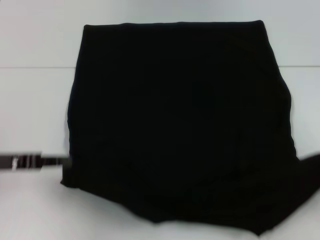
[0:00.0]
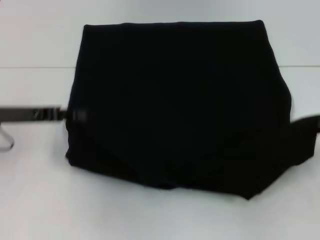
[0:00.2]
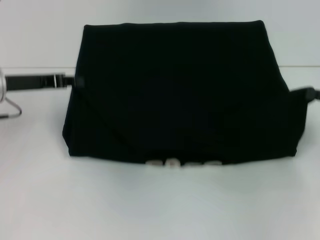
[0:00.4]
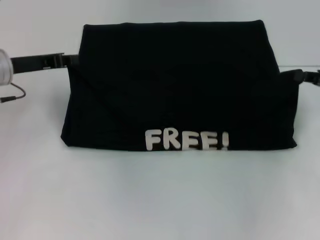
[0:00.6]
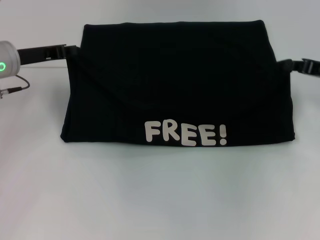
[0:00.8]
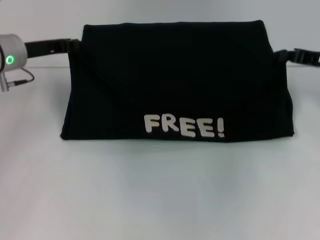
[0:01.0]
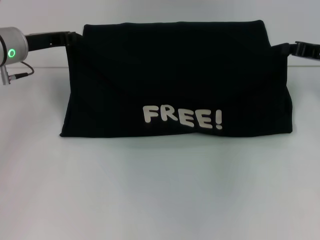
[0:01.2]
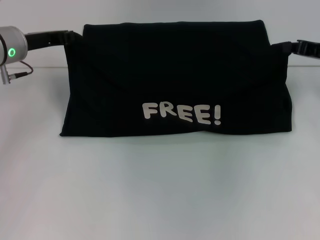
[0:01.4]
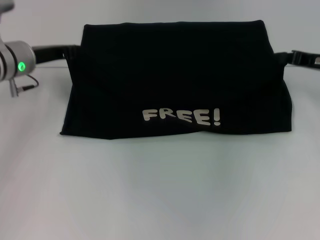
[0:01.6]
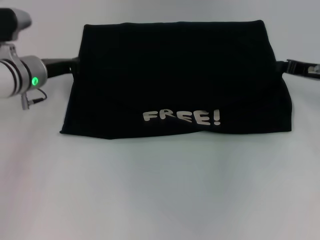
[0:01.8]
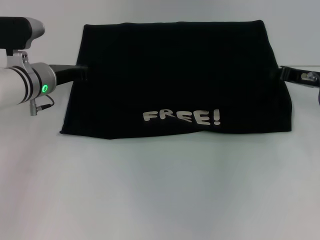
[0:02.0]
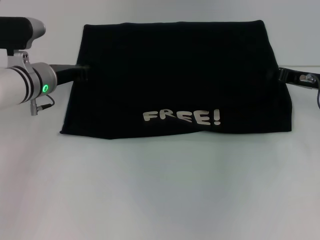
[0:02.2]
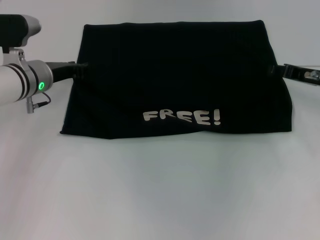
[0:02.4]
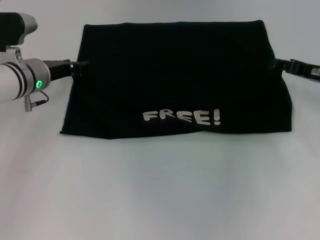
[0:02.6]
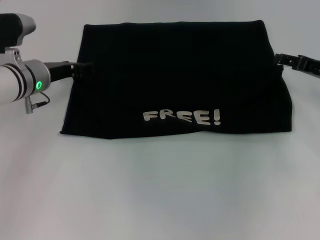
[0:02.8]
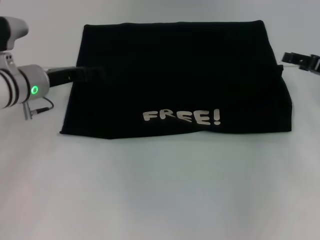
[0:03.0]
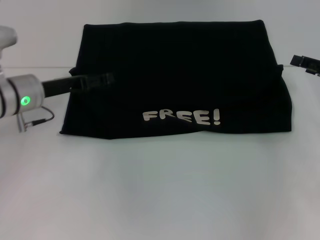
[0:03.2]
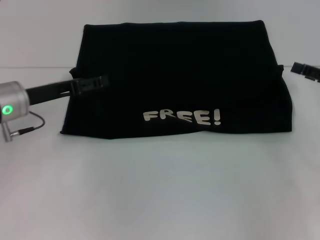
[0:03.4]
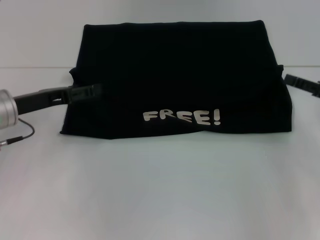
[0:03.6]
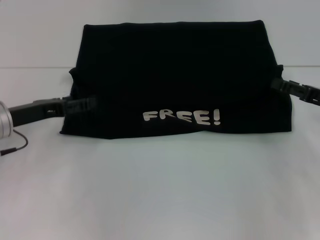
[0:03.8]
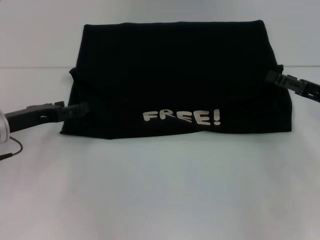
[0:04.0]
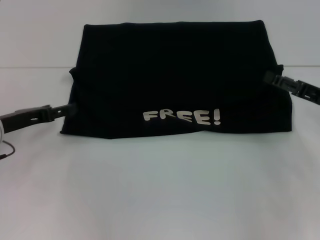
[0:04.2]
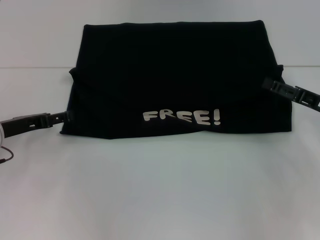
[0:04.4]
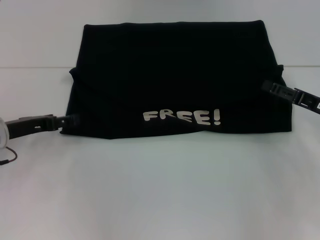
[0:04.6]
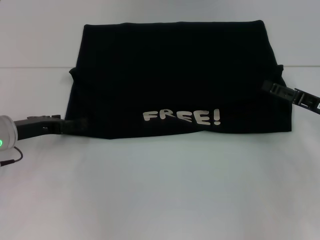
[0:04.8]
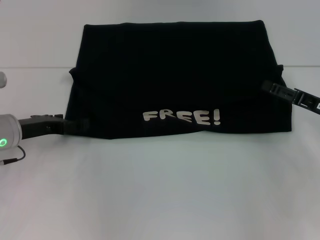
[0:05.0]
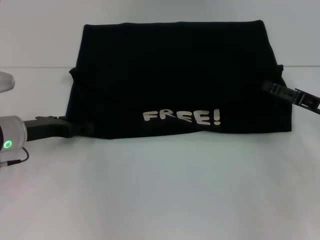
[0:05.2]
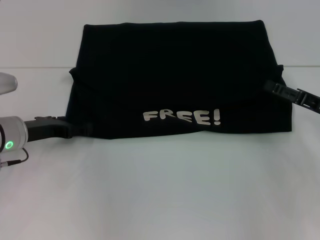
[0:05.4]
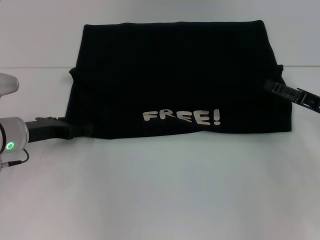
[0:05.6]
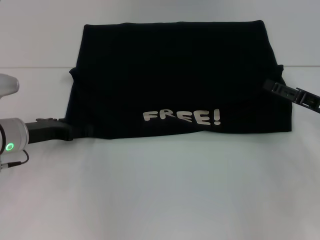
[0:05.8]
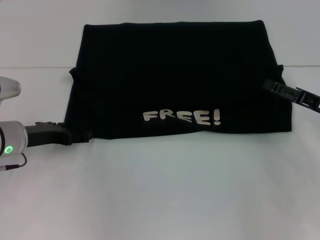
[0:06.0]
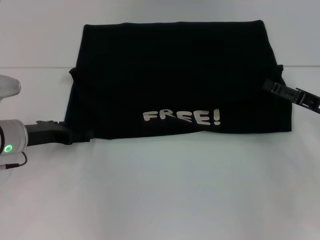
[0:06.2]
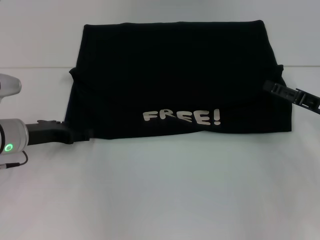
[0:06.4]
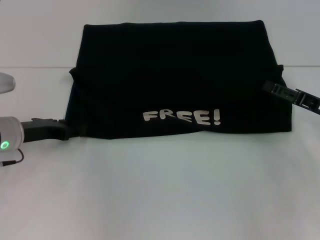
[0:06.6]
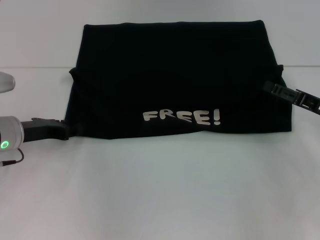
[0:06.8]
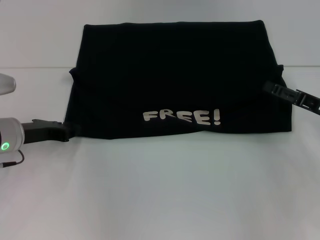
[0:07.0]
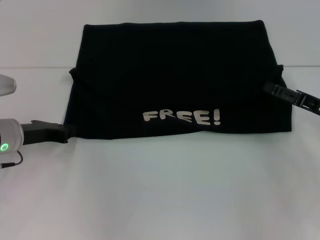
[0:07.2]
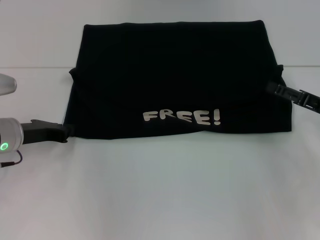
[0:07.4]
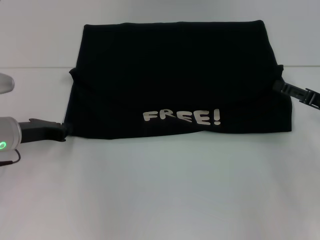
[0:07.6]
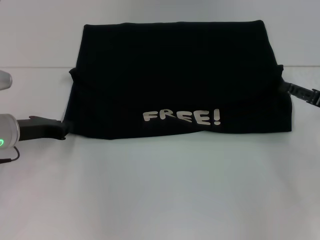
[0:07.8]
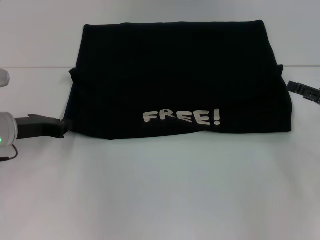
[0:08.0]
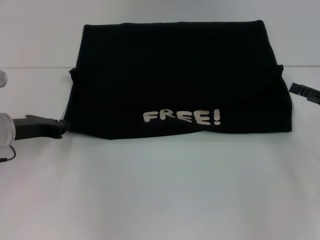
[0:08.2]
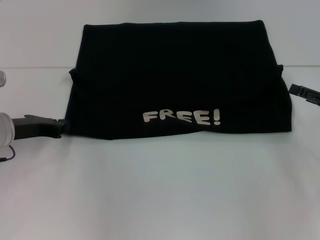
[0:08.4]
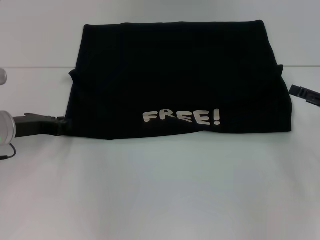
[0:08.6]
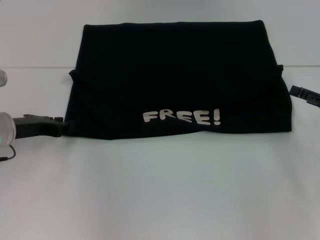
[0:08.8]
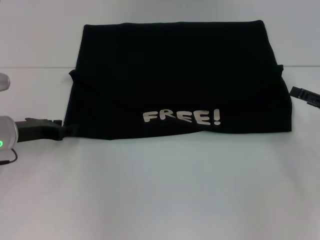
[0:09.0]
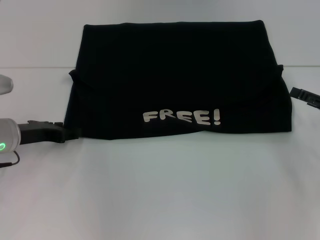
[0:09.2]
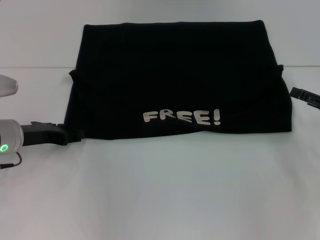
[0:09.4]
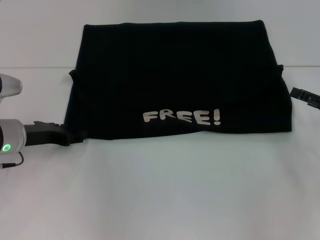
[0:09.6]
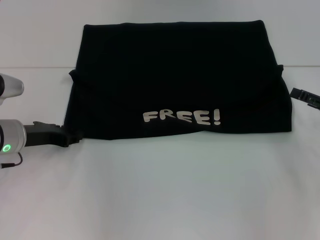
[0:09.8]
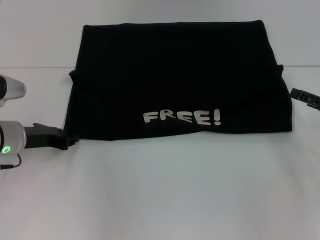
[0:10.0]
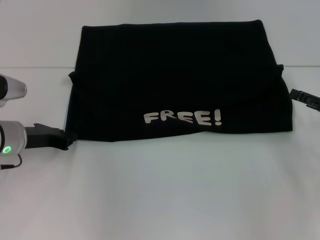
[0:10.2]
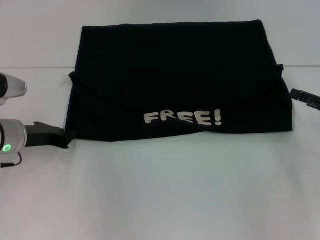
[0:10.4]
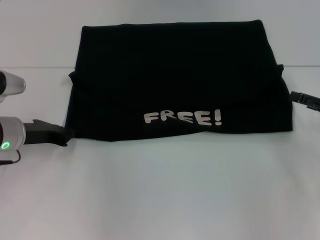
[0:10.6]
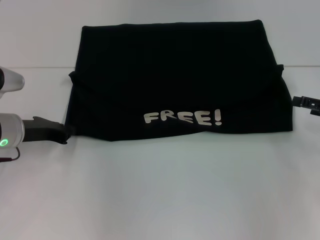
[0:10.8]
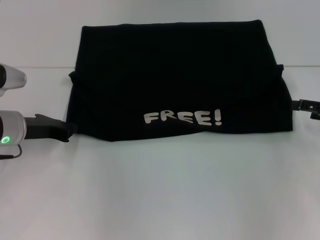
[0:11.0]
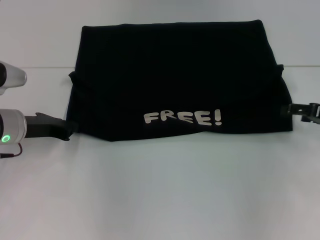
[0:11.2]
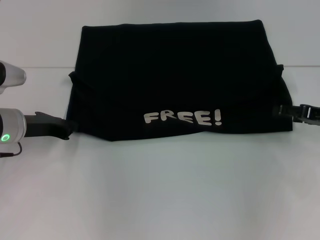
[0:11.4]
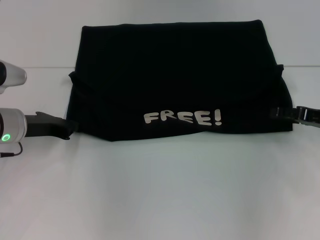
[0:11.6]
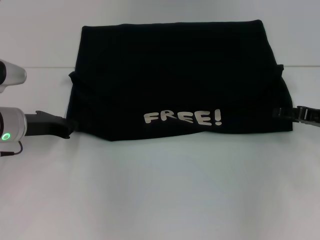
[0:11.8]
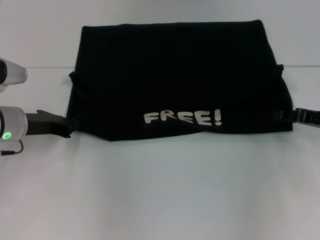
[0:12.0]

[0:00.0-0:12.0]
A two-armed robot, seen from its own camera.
Step, 0:00.0 to 0:02.4: Fold the clothes with your left hand.
Step, 0:00.0 to 0:02.4: Fold the clothes with your right hand.
0:00.0 to 0:01.6: The left gripper goes roughly 15 cm forward, while the right gripper shifts about 20 cm forward and to the left.
0:01.6 to 0:03.0: The right gripper opens. Meanwhile the left gripper opens up.
0:03.0 to 0:04.4: The left gripper travels backward and to the left by approximately 10 cm; the right gripper ends up roughly 5 cm from where it was.
0:04.4 to 0:06.0: The grippers stay close to where they were, moving slightly.
0:06.0 to 0:07.6: The left gripper closes up.
0:07.6 to 0:09.0: The left gripper opens.
0:09.0 to 0:12.0: There are only small adjustments of the grippers.

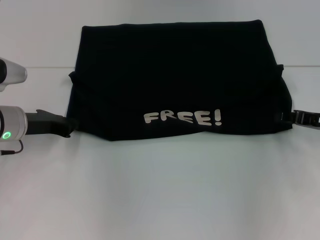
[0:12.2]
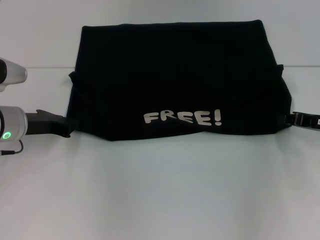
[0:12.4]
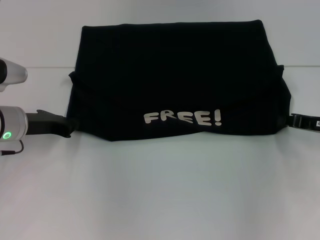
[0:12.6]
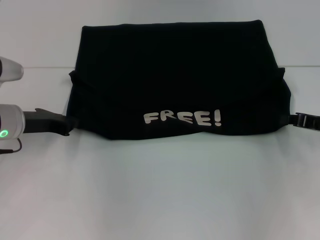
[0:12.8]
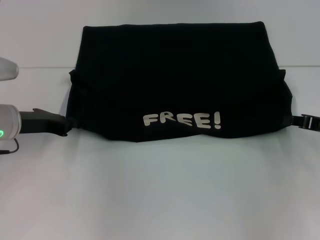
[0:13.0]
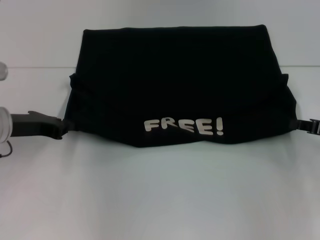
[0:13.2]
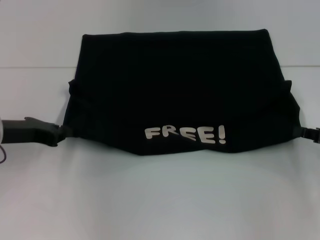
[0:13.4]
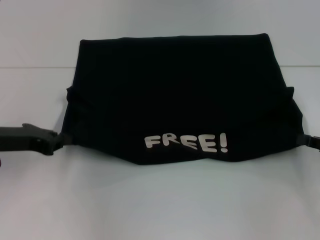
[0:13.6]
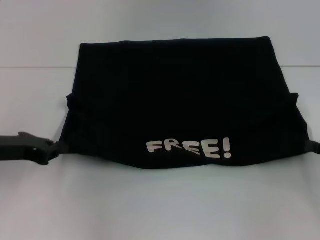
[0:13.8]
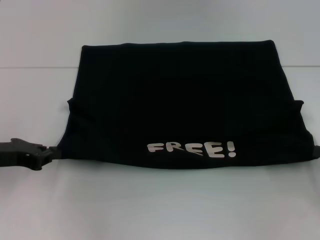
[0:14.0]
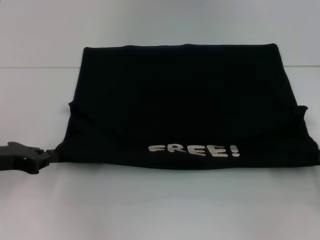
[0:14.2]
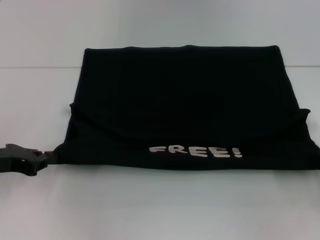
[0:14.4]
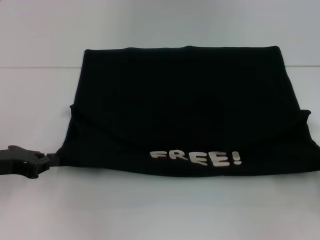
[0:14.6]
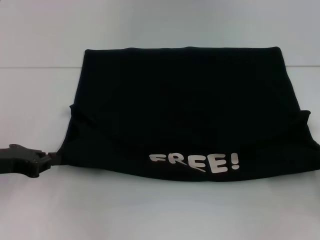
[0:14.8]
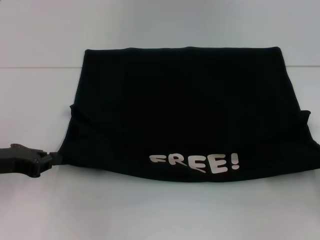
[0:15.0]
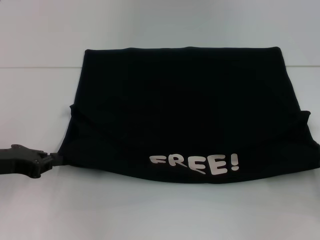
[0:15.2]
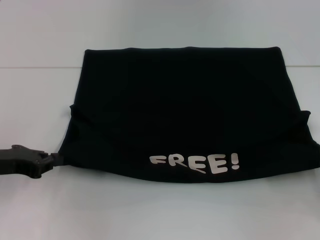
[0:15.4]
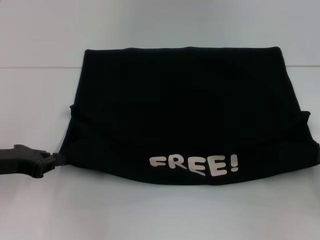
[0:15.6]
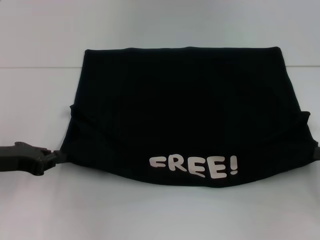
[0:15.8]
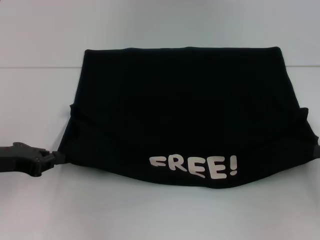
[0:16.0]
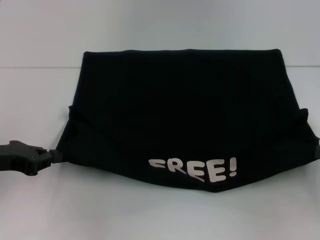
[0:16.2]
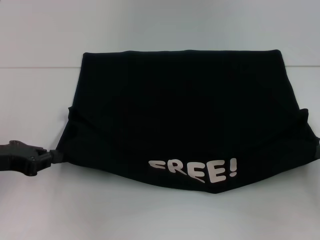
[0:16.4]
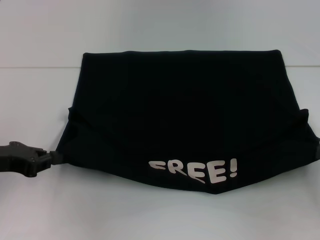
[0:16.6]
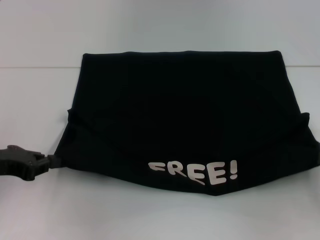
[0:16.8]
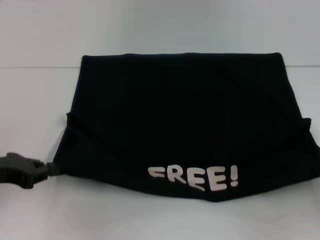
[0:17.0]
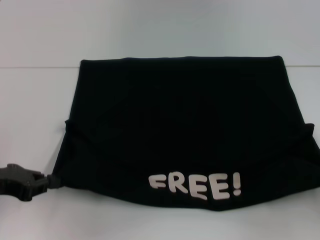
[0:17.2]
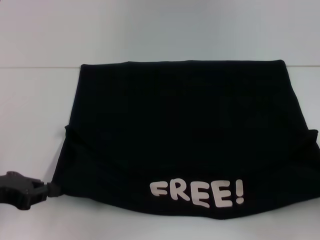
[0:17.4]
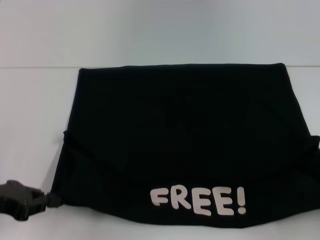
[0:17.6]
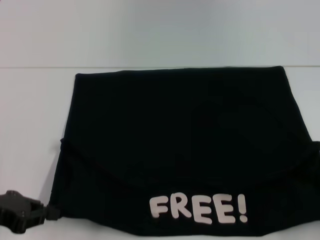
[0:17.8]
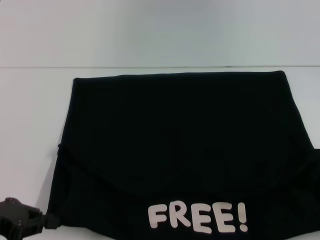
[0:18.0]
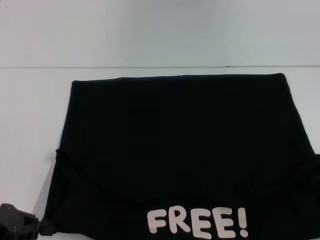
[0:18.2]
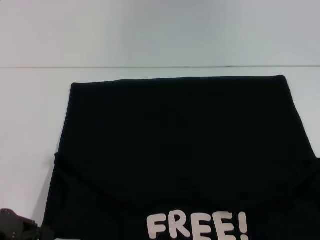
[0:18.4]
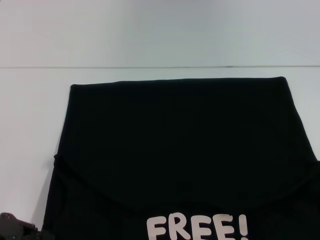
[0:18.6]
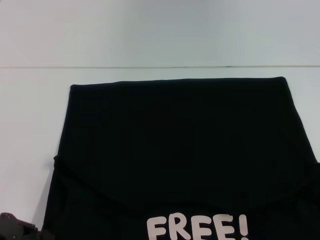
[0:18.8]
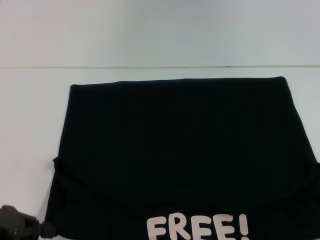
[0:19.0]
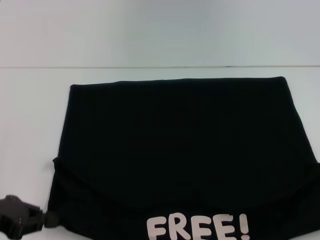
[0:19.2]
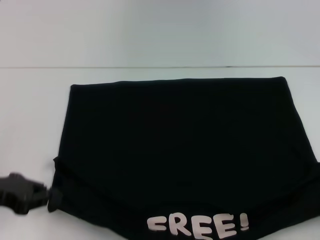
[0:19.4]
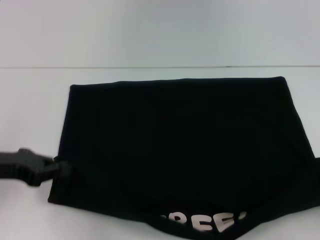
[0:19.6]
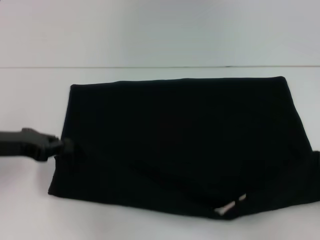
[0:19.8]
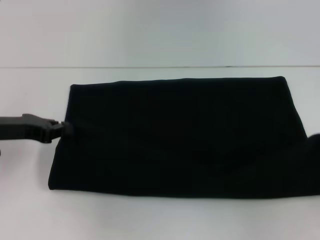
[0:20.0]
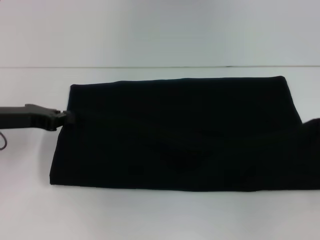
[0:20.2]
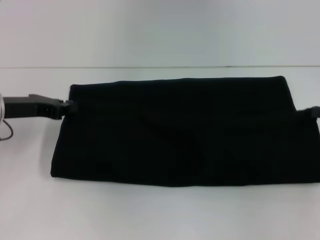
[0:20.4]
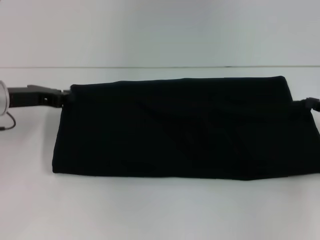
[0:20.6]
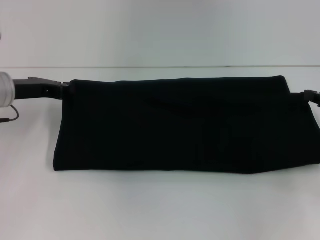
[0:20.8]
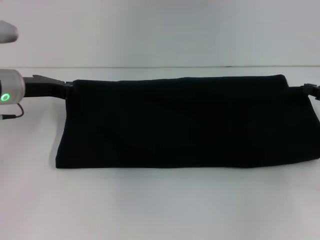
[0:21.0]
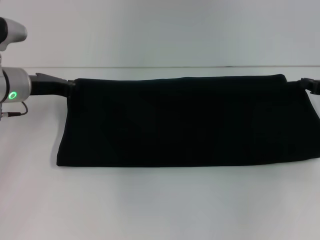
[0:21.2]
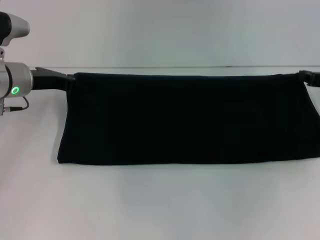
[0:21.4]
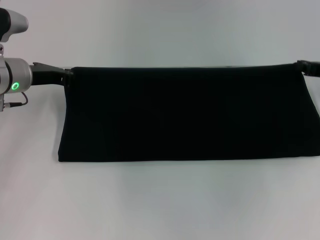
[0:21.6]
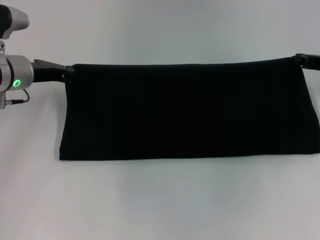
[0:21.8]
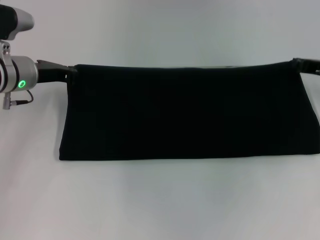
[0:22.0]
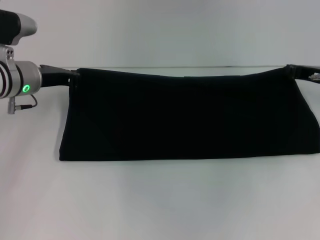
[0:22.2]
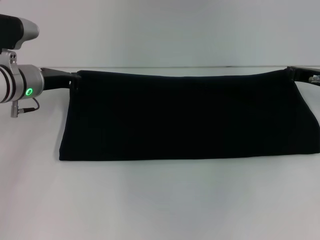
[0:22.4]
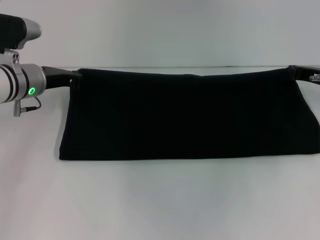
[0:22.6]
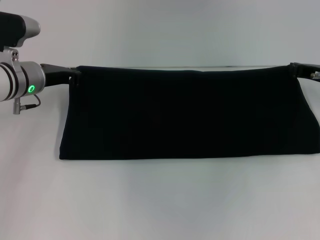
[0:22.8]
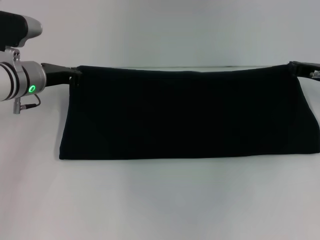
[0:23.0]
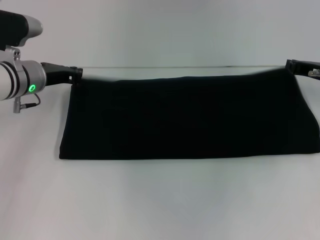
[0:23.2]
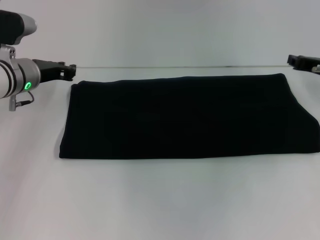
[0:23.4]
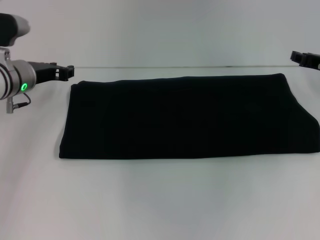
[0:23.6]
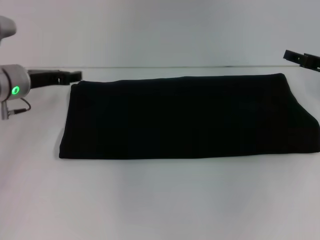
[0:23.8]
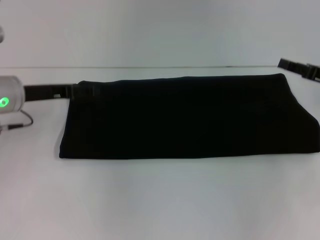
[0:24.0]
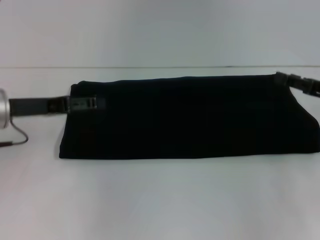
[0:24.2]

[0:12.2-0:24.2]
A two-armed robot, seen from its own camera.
Step, 0:12.2 to 0:18.2: Pull the clothes with your left hand.
Step, 0:12.2 to 0:18.2: Pull the clothes with your right hand.
Step, 0:18.4 to 0:23.8: Fold the clothes with your right hand.
0:12.2 to 0:13.8: The right gripper shifts about 10 cm backward and to the right, and closes up. The left gripper is displaced backward by some 5 cm.
0:13.8 to 0:16.6: There are only small adjustments of the grippers.
0:16.6 to 0:18.2: The grippers both shift backward by about 5 cm.
0:18.2 to 0:19.8: Both grippers move forward, some 10 cm.
0:19.8 to 0:21.2: The two grippers go approximately 10 cm forward.
0:21.2 to 0:22.6: The right gripper moves some 5 cm.
0:22.6 to 0:24.2: The grippers both shift backward by approximately 10 cm. The left gripper opens, while the right gripper opens.
